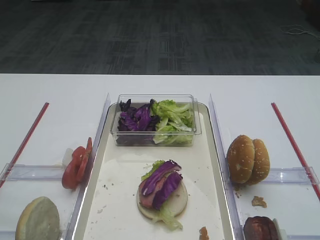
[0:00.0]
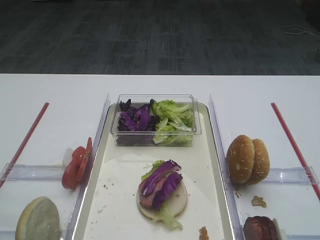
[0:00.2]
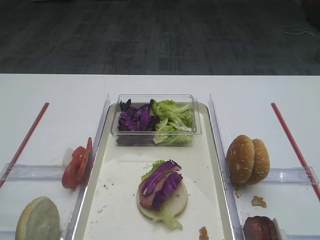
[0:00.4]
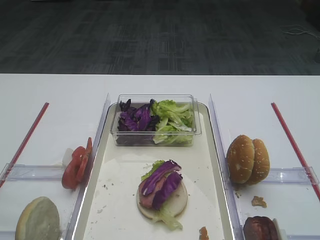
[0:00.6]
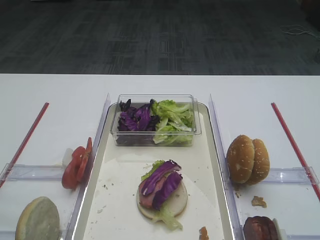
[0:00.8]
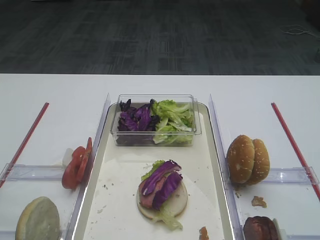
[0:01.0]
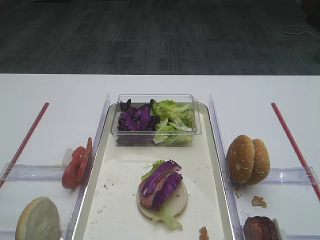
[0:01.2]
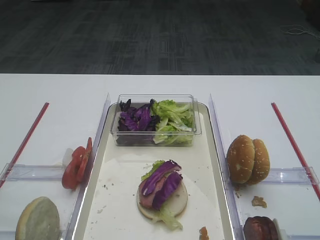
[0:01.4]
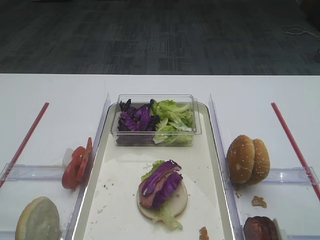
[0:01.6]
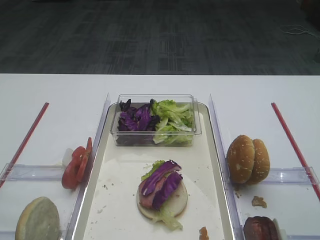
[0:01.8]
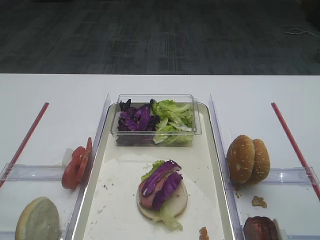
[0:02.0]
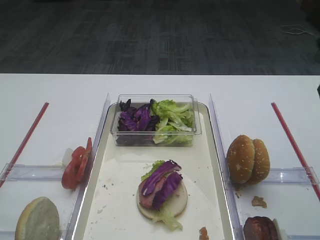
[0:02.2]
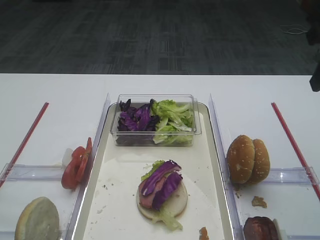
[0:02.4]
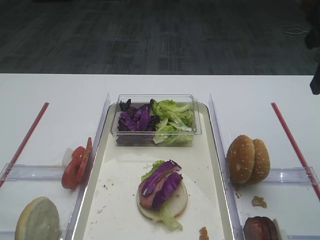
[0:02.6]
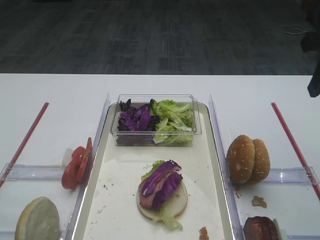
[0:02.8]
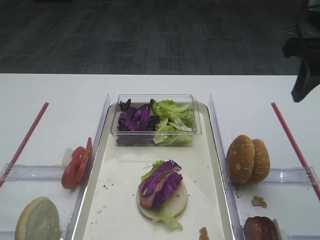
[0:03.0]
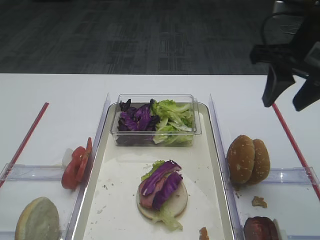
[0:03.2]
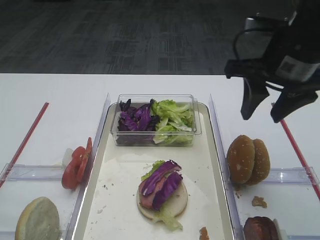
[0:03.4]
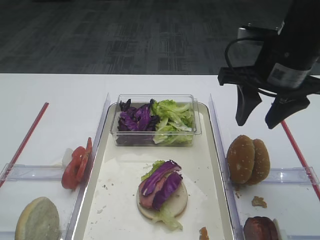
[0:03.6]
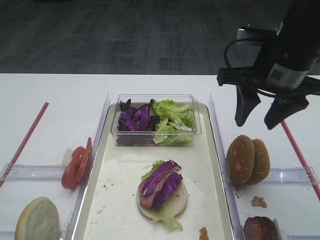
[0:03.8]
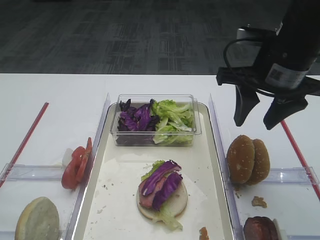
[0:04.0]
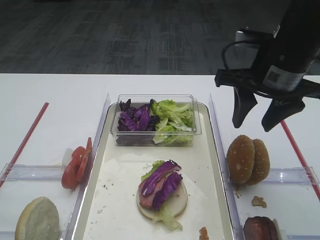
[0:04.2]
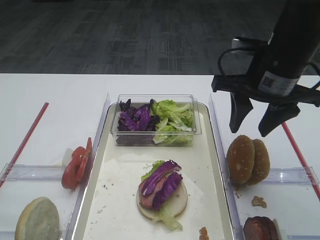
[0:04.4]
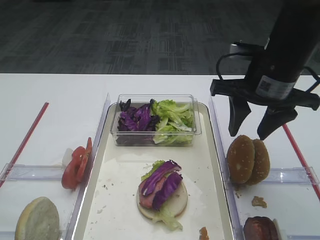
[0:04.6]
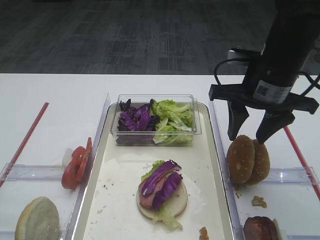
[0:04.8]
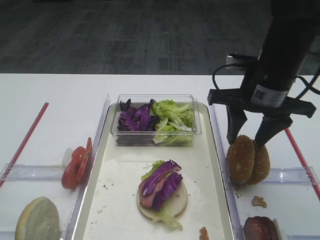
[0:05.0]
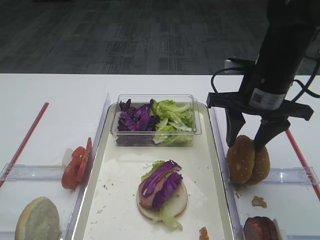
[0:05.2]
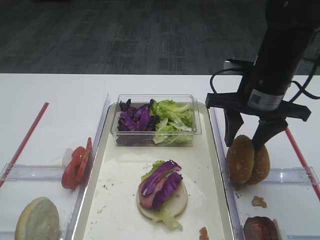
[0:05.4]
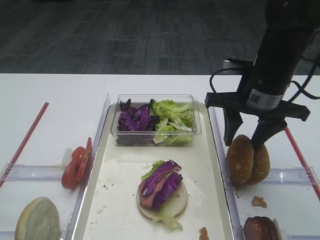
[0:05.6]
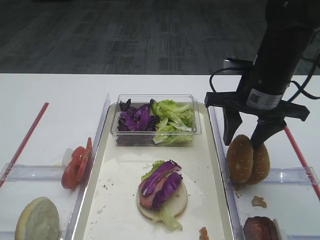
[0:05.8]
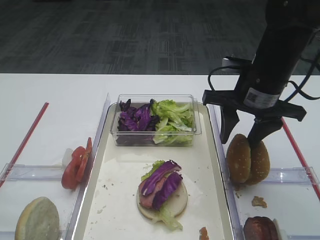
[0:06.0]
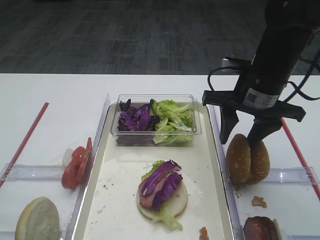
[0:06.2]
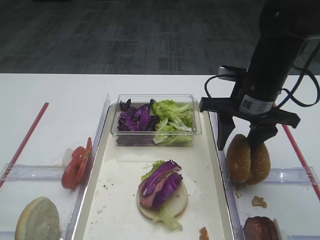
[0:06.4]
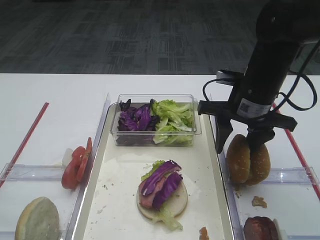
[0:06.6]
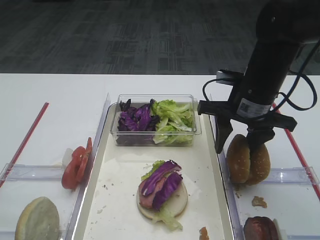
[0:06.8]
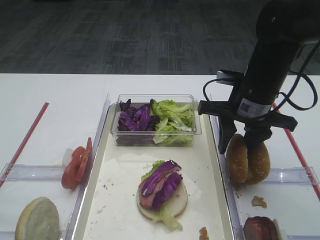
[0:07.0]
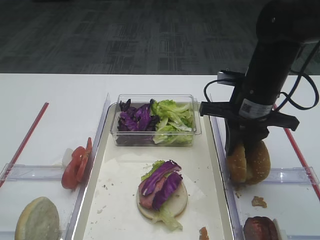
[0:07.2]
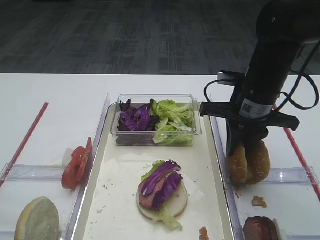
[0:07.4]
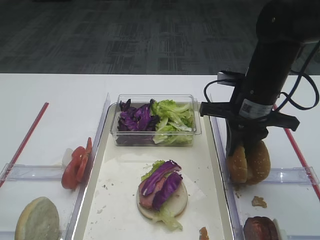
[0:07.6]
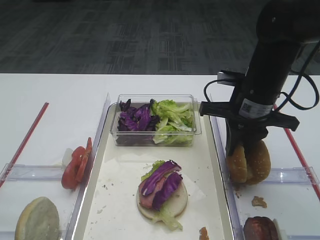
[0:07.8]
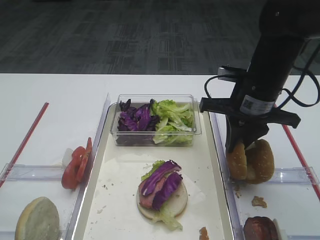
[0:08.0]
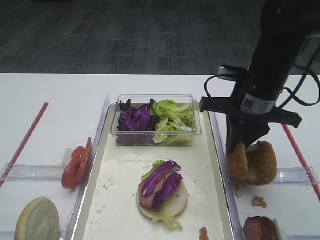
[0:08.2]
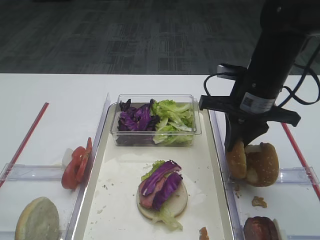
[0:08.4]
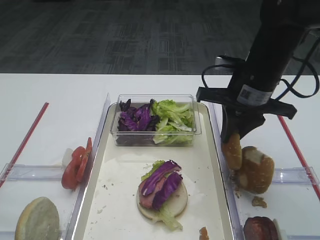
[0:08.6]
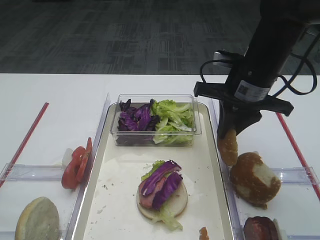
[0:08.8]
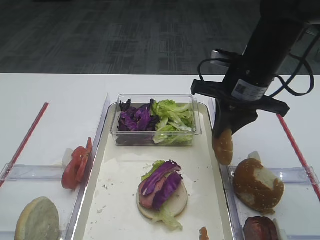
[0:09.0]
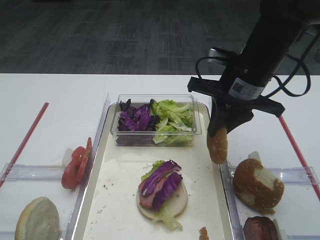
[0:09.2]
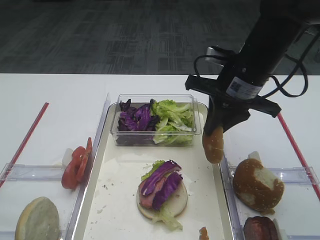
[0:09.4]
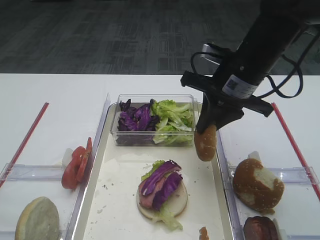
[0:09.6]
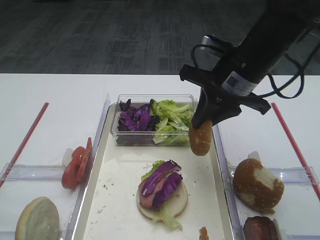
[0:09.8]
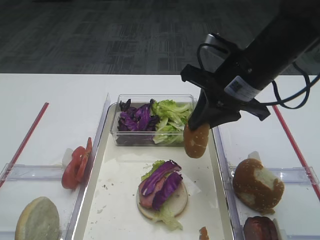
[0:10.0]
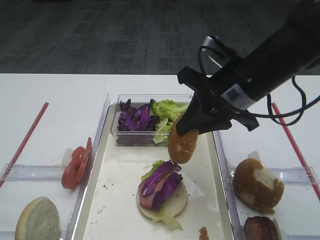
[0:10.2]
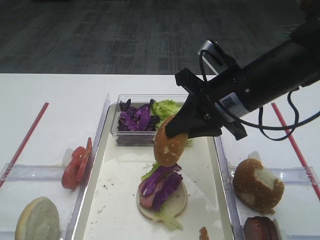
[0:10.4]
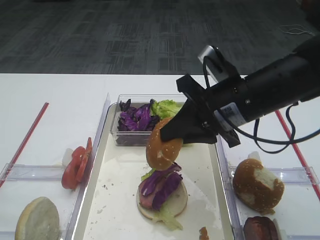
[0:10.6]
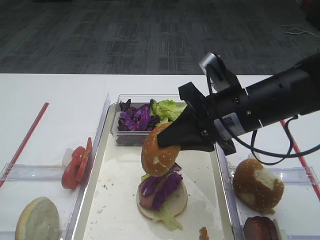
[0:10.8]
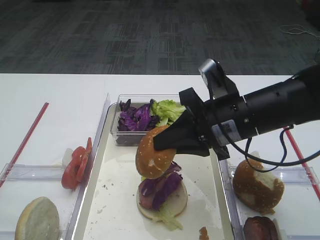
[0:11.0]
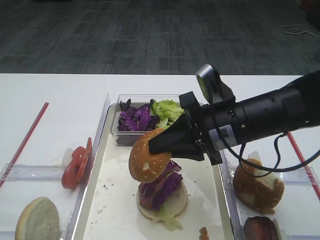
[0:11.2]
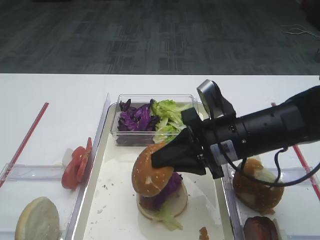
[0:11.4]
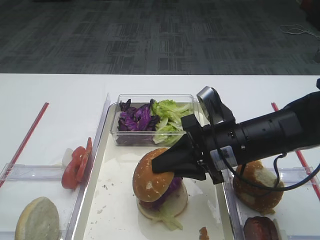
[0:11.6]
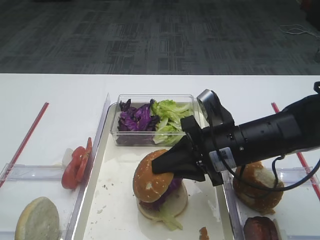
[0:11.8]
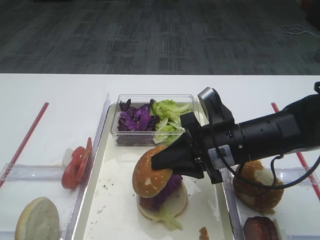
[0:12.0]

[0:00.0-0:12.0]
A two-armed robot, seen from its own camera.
Step, 0:00.0 to 0:09.0: Pick up the hamburger lid with the right gripper.
0:01.6 to 0:03.0: The right gripper shifts roughly 20 cm forward.
0:03.0 to 0:04.4: The right gripper moves to the left and downward, roughly 10 cm.
0:04.4 to 0:06.0: The grippers move only a little.
0:06.0 to 0:07.6: The right gripper closes.
0:07.6 to 0:09.0: The grippers move only a little.
0:09.0 to 0:10.4: The right gripper changes place by approximately 5 cm.
0:10.4 to 0:12.0: The right gripper heads downward, covering about 10 cm.

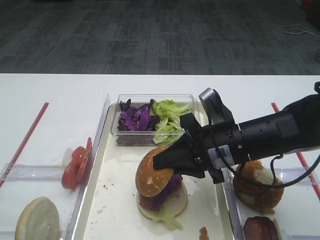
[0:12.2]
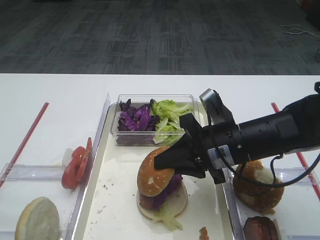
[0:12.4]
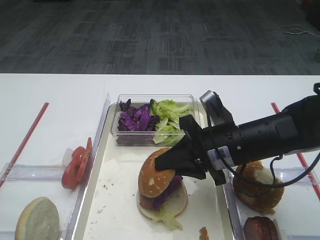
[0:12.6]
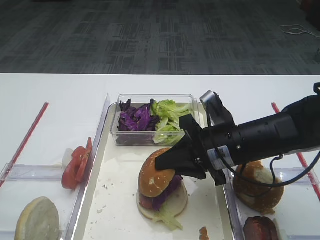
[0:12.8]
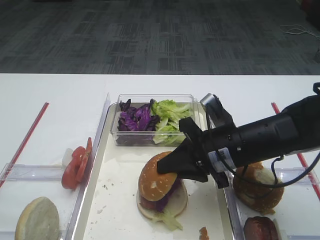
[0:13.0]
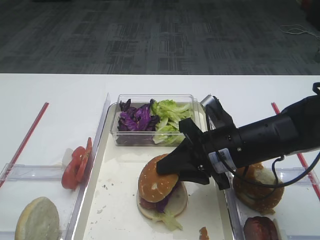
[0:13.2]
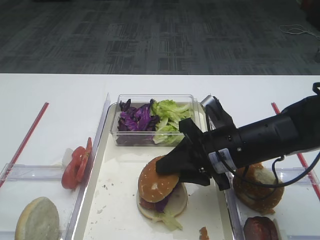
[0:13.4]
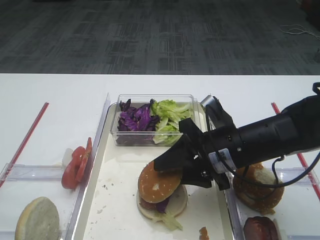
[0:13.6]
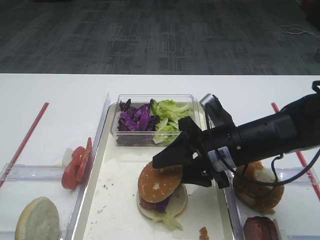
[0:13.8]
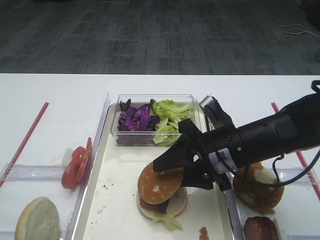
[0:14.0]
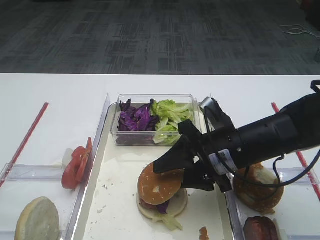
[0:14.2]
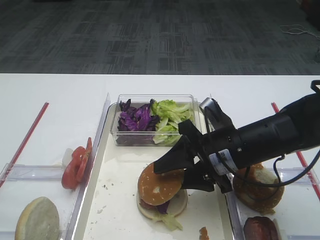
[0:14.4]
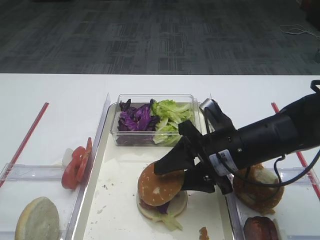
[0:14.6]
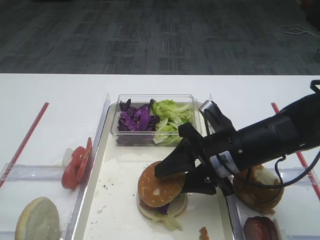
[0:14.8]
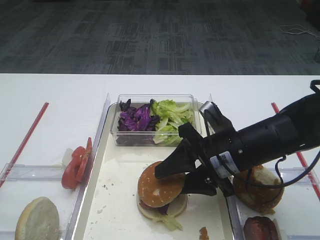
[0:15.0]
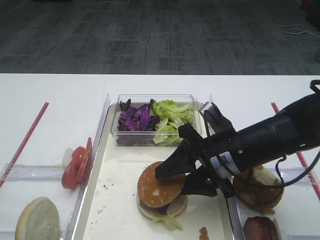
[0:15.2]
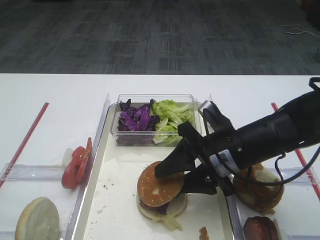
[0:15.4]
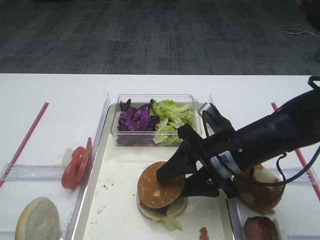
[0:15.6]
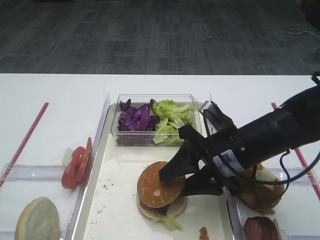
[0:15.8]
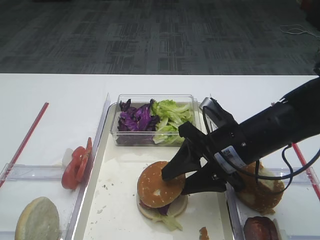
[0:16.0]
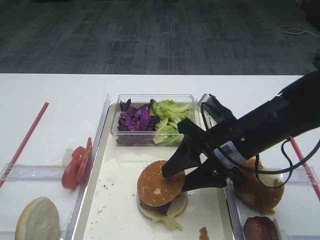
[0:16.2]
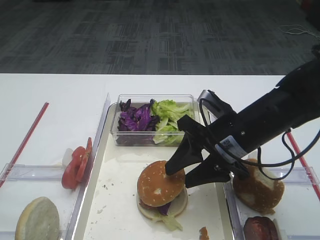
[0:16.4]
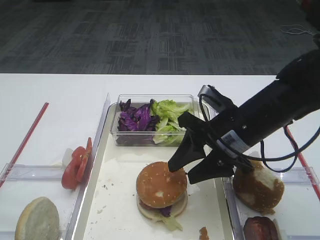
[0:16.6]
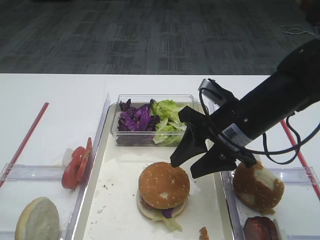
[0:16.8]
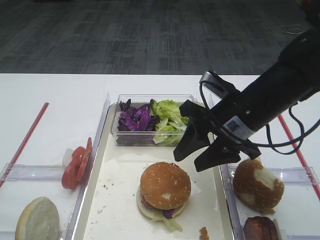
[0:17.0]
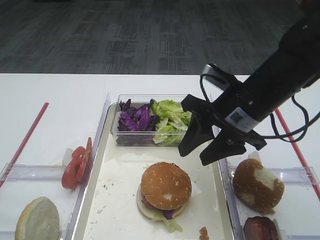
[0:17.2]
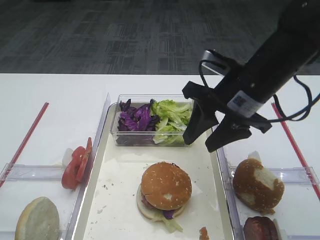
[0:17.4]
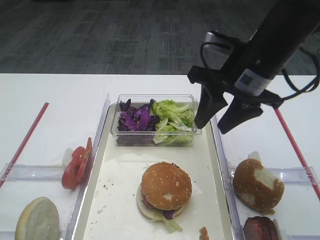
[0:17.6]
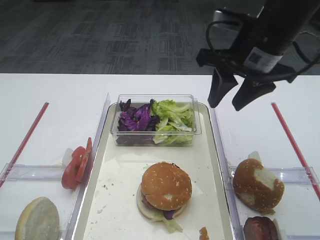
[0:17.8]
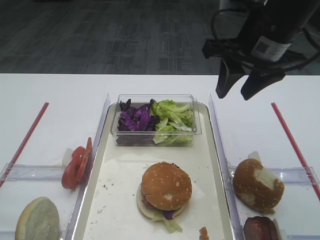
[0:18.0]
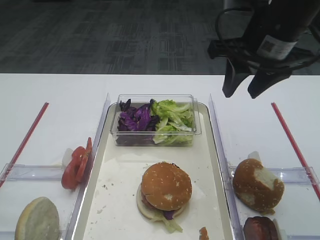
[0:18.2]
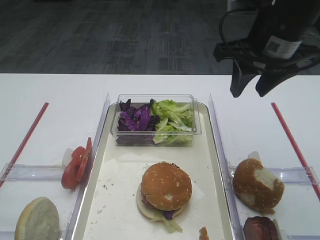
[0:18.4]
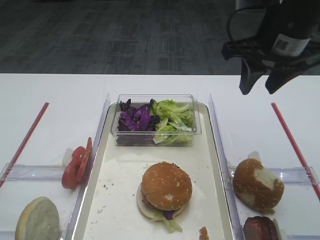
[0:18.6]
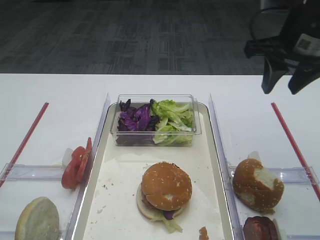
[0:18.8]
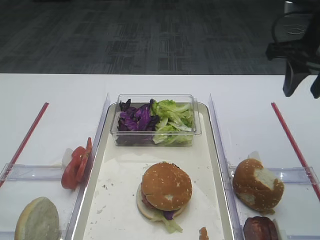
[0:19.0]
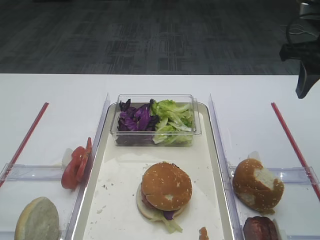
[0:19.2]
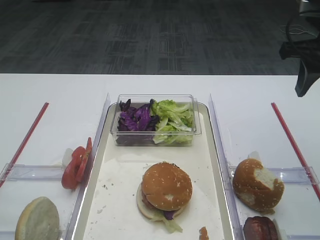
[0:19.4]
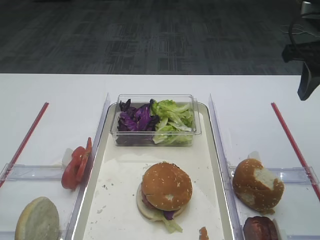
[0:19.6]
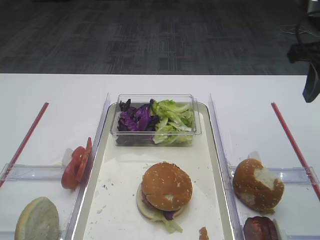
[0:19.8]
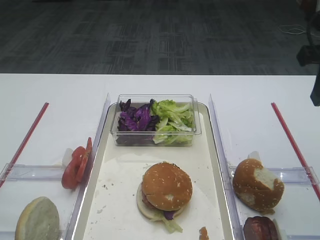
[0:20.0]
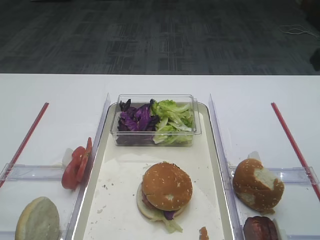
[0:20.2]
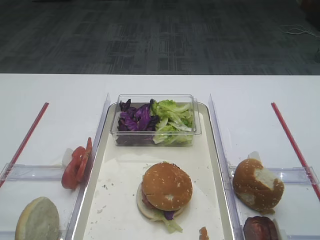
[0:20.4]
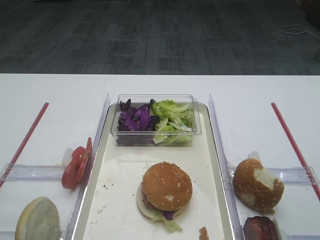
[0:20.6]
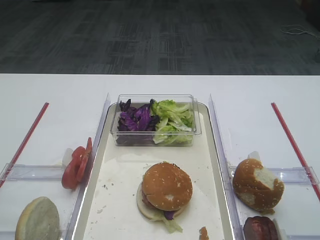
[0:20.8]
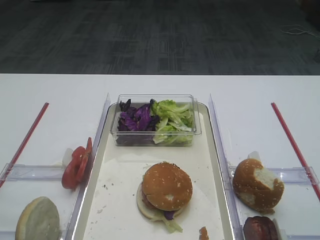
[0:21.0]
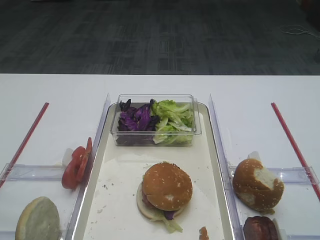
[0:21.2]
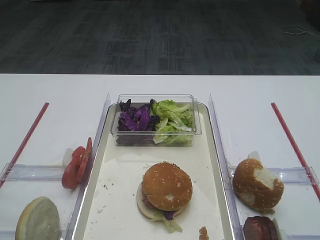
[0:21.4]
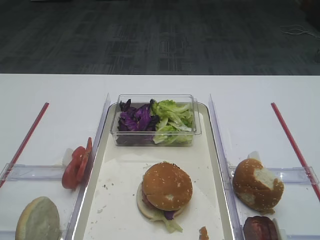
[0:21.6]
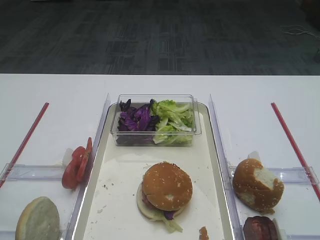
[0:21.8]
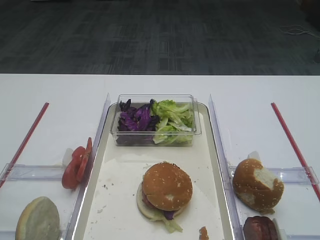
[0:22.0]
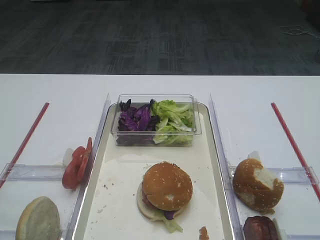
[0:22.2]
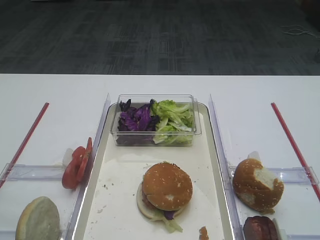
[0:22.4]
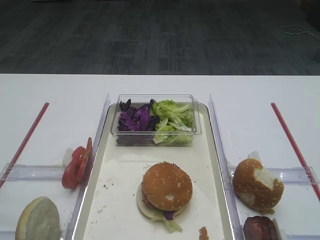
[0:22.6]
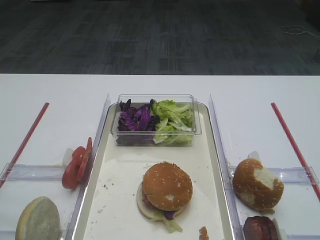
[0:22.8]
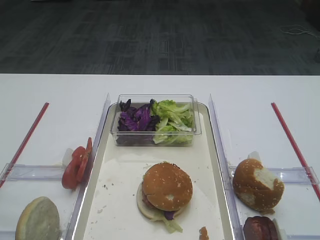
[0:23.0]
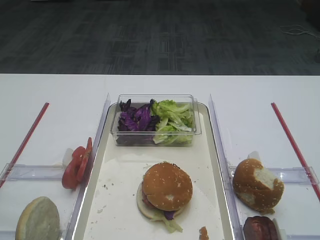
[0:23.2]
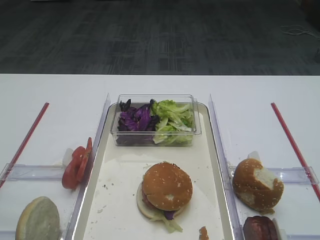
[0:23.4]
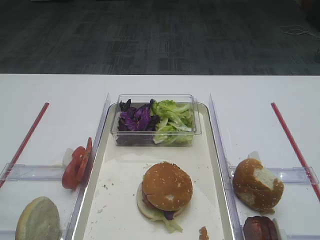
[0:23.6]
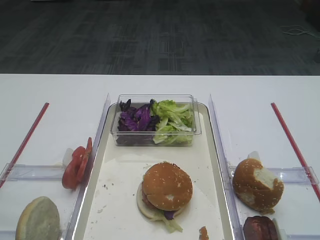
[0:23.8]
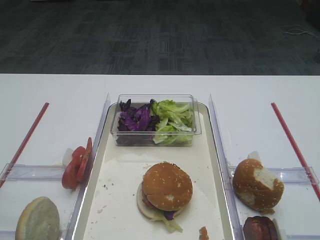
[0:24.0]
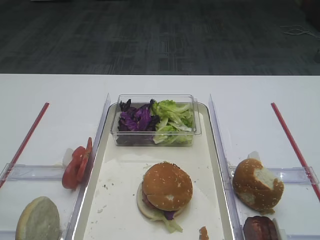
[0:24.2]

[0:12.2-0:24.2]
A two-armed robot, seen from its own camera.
Step, 0:12.2 to 0:17.0: Place the hamburger lid on the purple cabbage with the right gripper.
0:12.2 to 0:13.8: The right gripper opens its fingers.
0:13.8 to 0:16.6: The grippers stay close to where they were, moving slightly.
0:16.6 to 0:18.2: The right gripper goes approximately 15 cm upward.
0:18.2 to 0:19.8: The right gripper travels to the right by approximately 10 cm.
0:19.8 to 0:21.2: The right gripper shifts approximately 25 cm backward.
